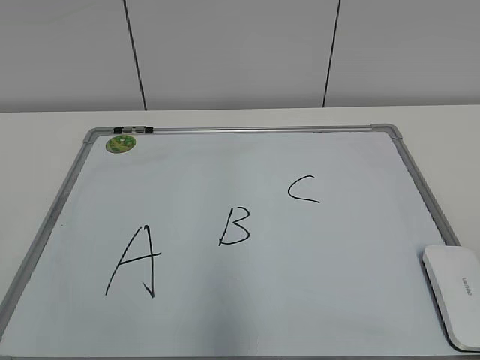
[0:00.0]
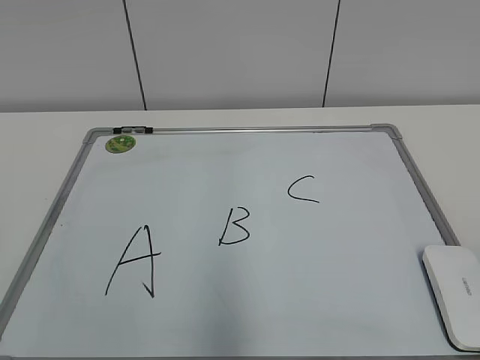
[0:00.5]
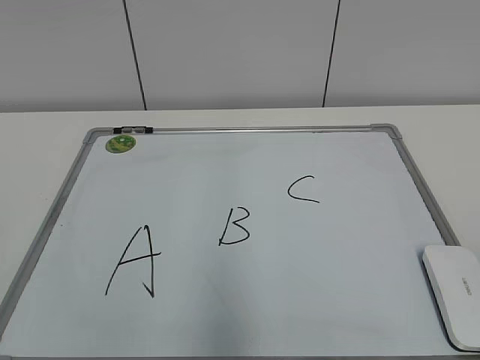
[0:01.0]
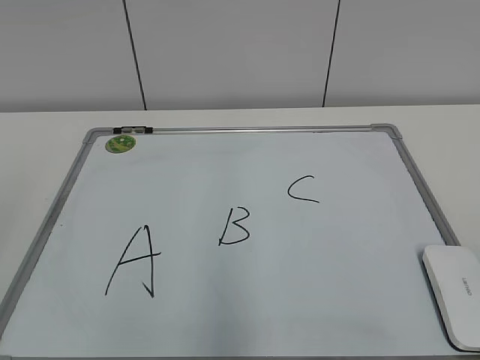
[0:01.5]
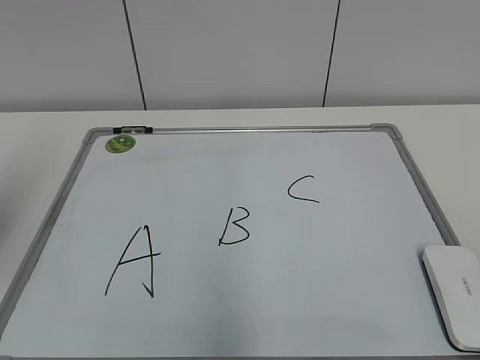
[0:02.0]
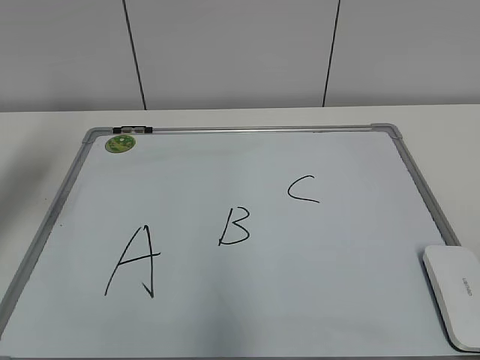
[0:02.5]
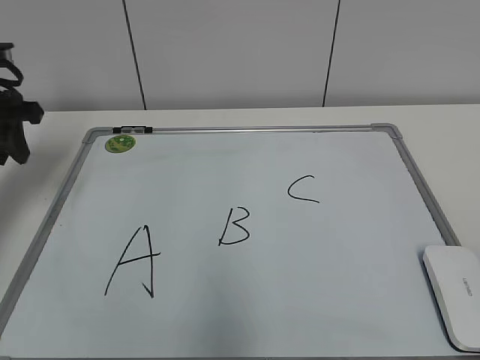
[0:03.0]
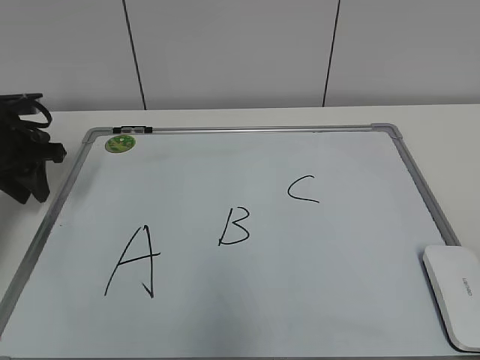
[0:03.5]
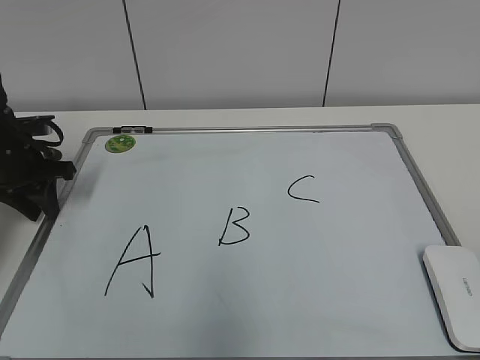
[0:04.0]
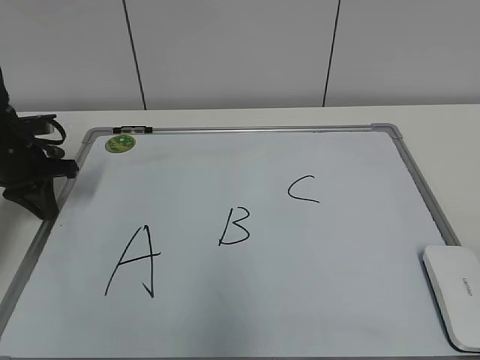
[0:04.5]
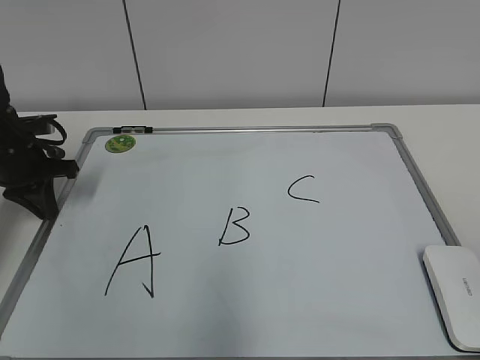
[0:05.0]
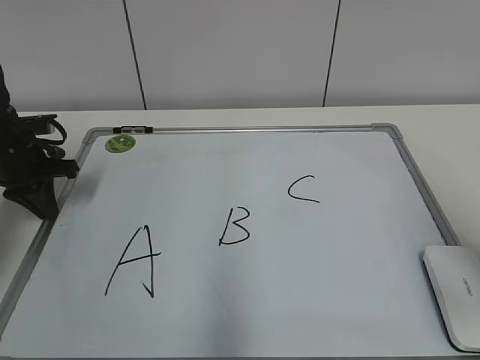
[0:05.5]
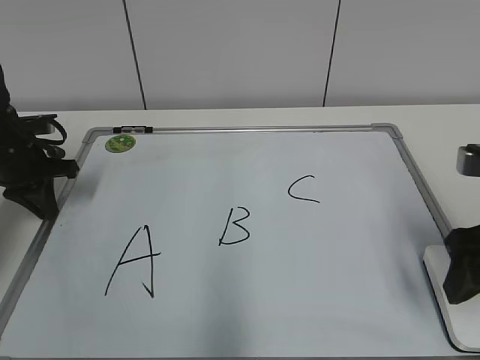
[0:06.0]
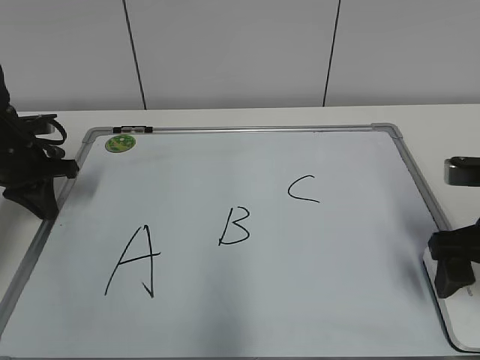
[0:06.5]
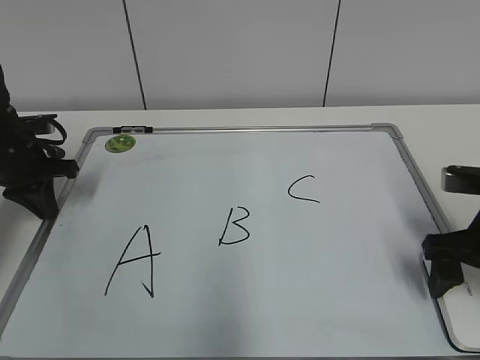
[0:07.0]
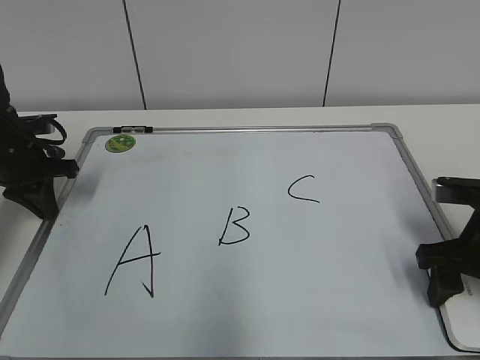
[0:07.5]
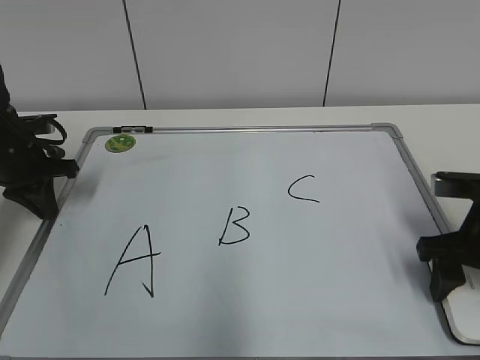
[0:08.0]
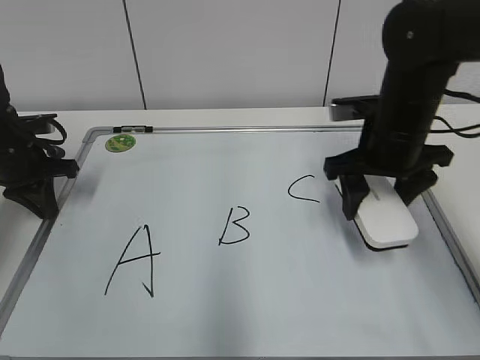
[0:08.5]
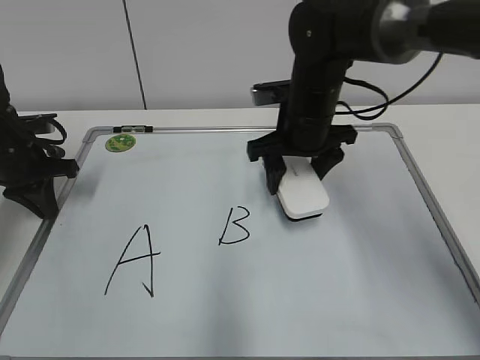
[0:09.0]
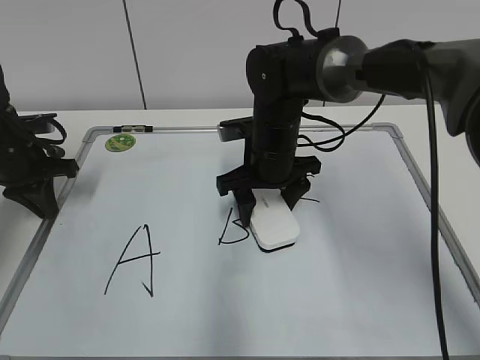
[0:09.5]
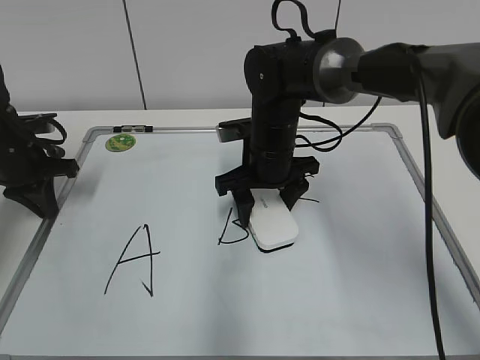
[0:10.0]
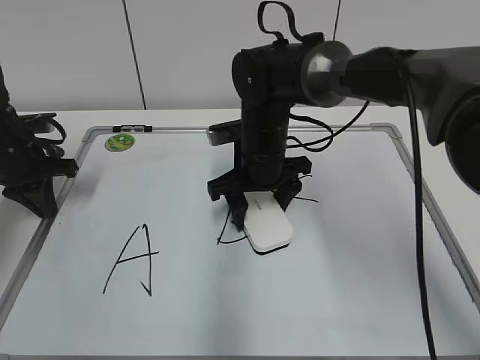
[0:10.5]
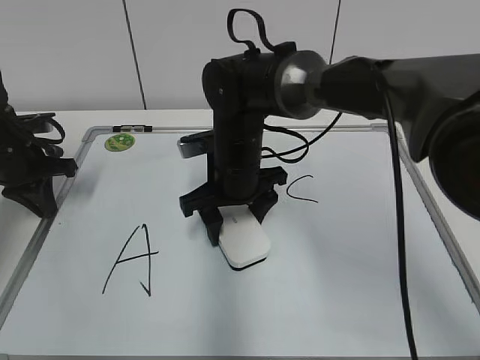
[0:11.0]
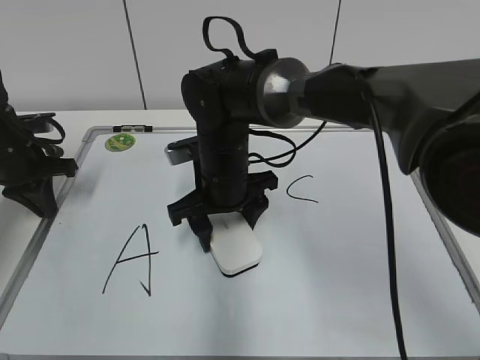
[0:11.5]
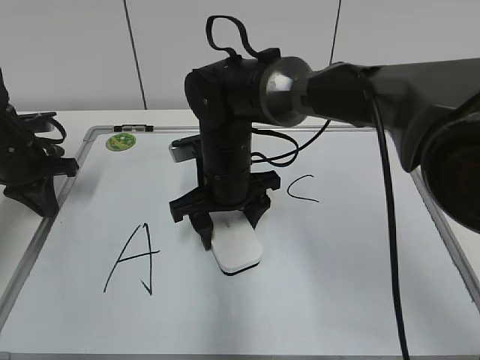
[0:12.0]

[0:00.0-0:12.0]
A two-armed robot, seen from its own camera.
Task of the whole recording: pick up the eraser on the blackboard and erase the letter "B".
Step, 0:00.0 to 0:04.0: Hold the drawing board steady with your left hand.
Step, 0:04.5 to 0:07.5: Grab the eraser with your right hand.
0:02.0 to 0:04.0: The left gripper travels forward and downward by roughly 30 cm.
0:04.0 to 0:06.0: The left gripper closes its fingers. The right gripper shifts approximately 25 cm forward.
0:06.0 to 0:08.0: The right gripper goes some 10 cm downward and forward, and closes up.
0:08.0 to 0:10.0: The right gripper heads to the left and forward, covering some 25 cm.
0:10.0 to 0:12.0: The right gripper goes some 5 cm to the left.

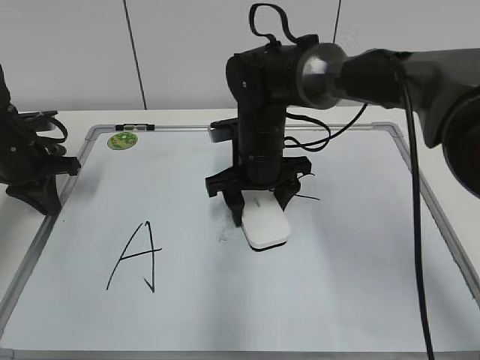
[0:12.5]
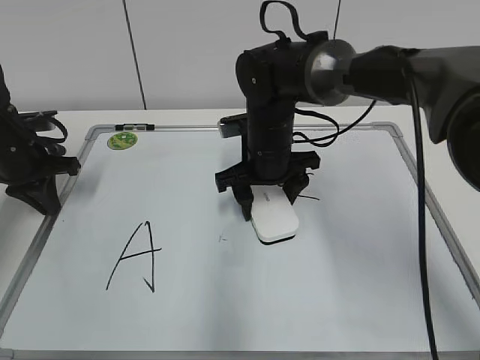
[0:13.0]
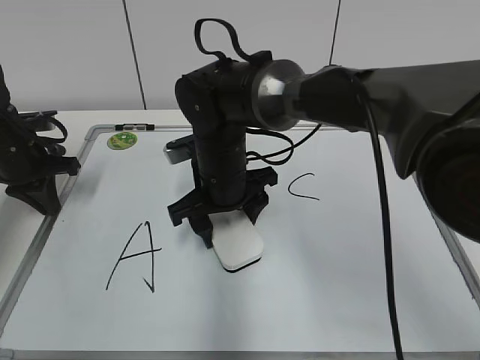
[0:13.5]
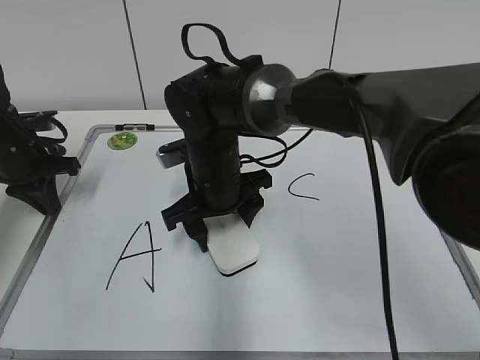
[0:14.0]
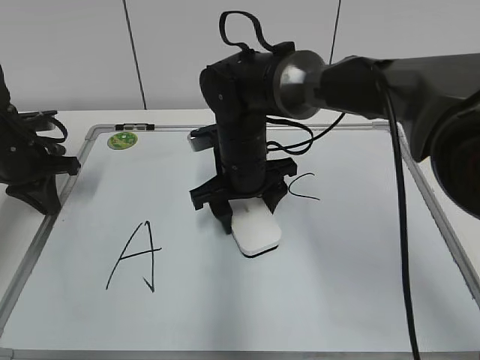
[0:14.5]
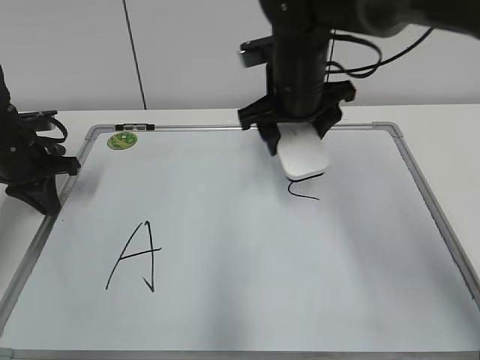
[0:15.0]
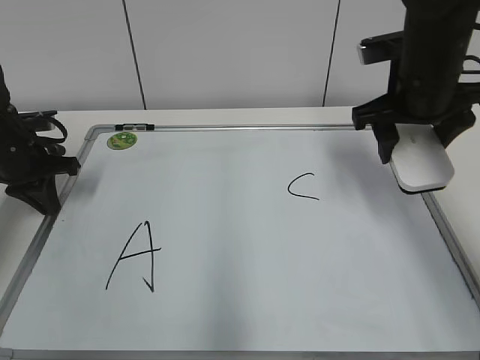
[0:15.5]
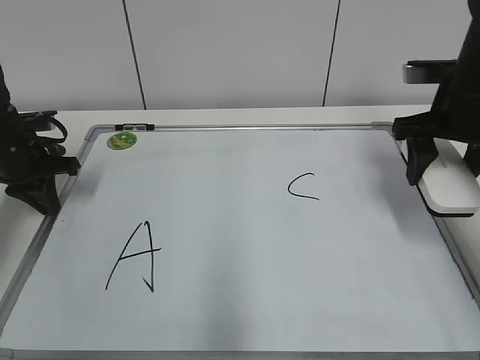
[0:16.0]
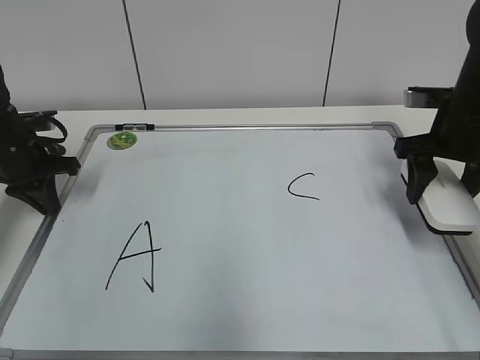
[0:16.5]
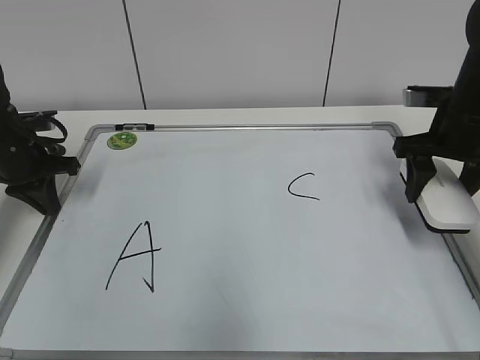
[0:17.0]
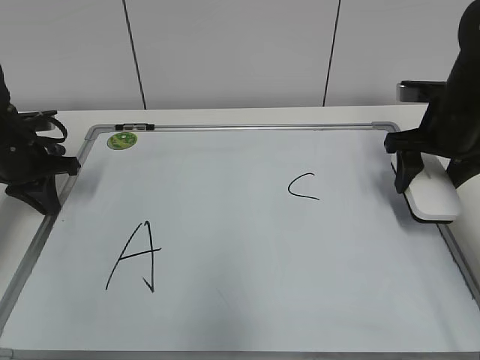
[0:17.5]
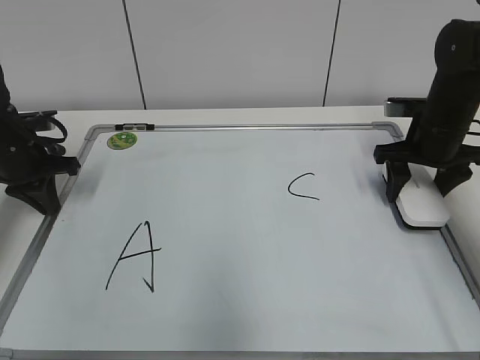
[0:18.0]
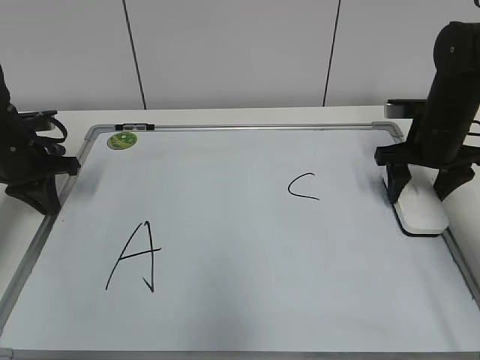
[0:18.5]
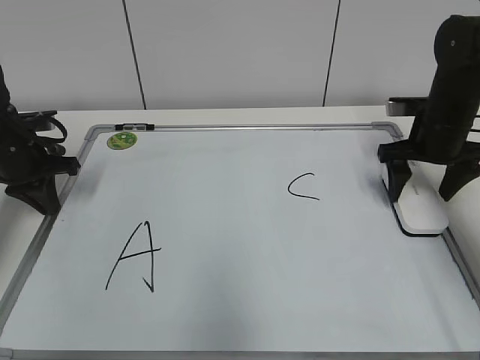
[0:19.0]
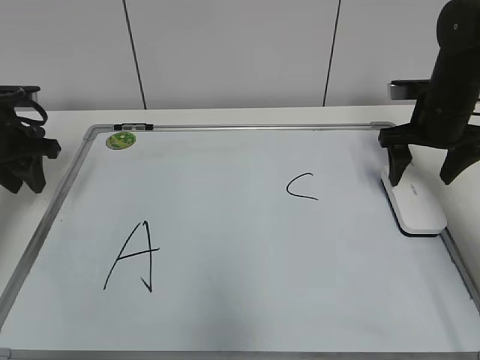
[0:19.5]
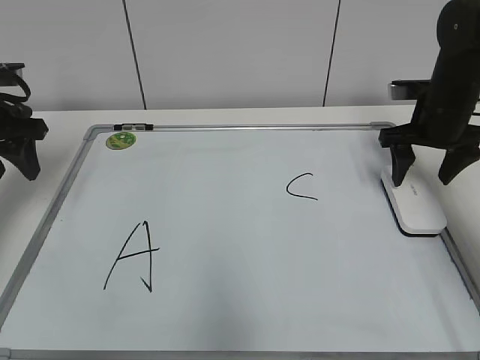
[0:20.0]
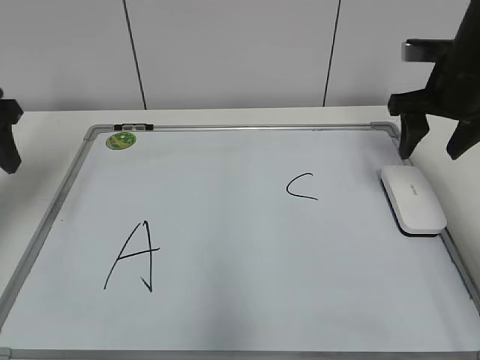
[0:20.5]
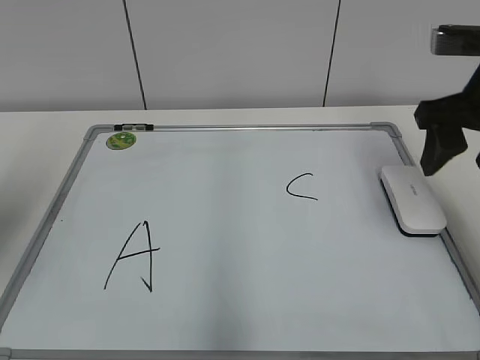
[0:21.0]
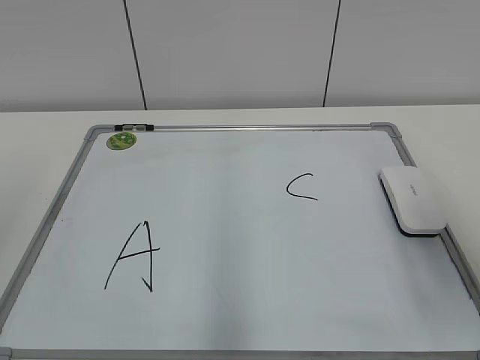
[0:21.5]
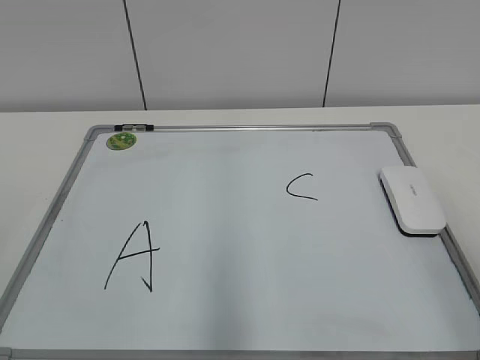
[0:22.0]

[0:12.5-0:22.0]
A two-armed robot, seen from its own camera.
Task of the whole recording: pick up the eraser on the blackboard and erase the letter "B".
Step, 0:12.5 to 0:14.5: Erase the letter B with your right hand.
Step, 0:15.0 to 0:18.5: Put down the eraser with your right hand.
0:14.5 to 0:16.5: The right gripper goes some 25 cm to the right.
0:16.5 to 0:18.0: The right gripper moves approximately 5 cm.
0:18.0 to 0:20.0: The right gripper opens up. The left gripper moves upward, about 10 cm, and opens.
0:20.0 to 0:22.0: The two grippers go about 35 cm backward.
